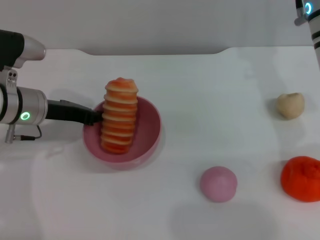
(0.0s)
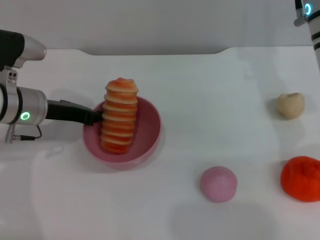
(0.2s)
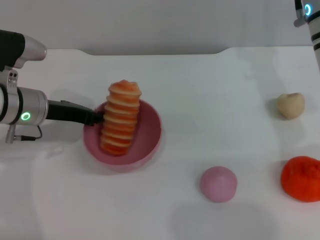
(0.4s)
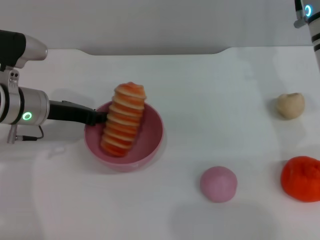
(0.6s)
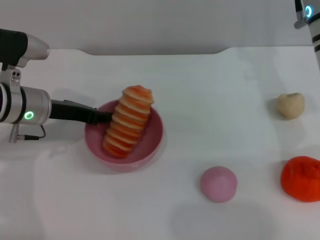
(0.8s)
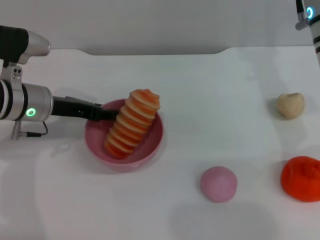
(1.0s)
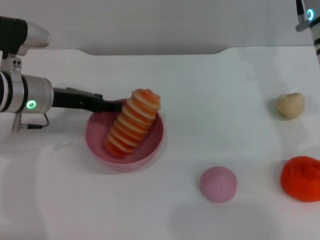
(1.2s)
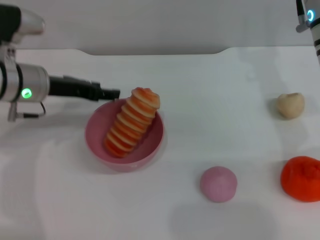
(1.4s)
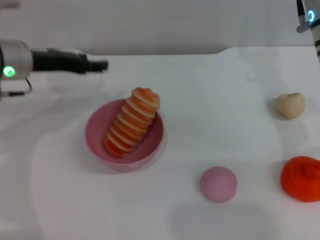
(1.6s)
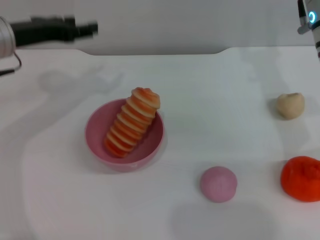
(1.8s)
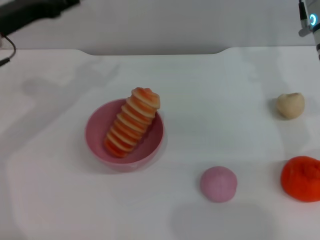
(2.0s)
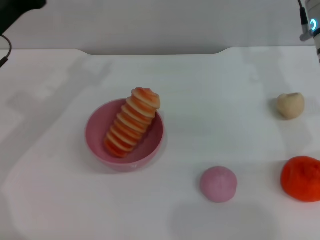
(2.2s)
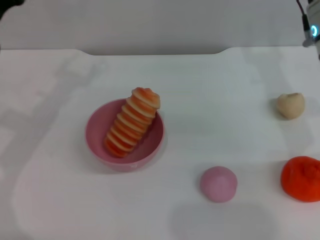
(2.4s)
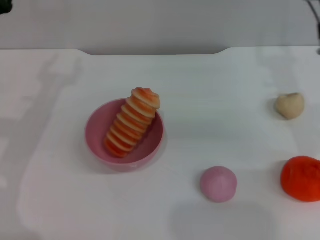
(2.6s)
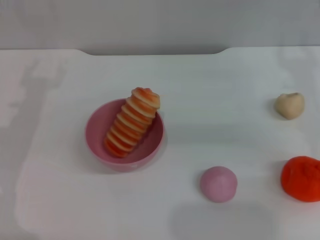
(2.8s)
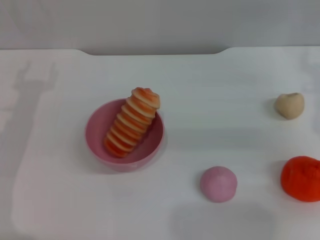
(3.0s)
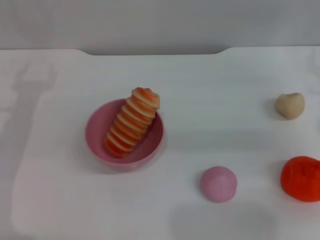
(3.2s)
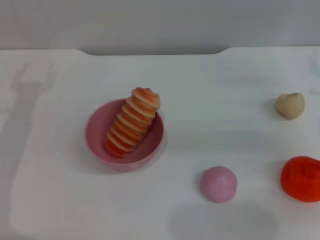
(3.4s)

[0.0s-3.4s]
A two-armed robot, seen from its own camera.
Task of the whole recording: put the bread into the pink bowl and pour it out repeatedly.
0.0s to 1.6s: The left gripper goes roughly 5 cm upward, and opens its fingers.
1.6s to 3.4s: The right gripper heads to the right and downward, covering about 10 cm. Meanwhile the left gripper shifts some 10 cm to the left, downward and backward.
